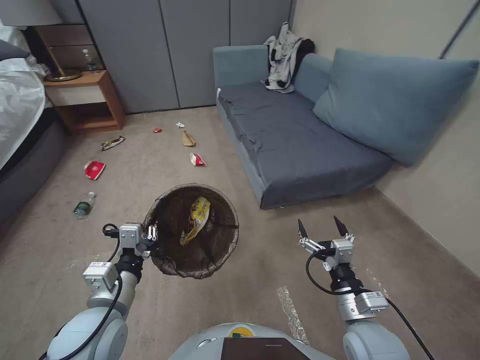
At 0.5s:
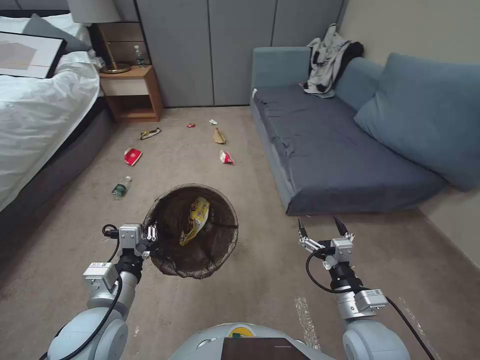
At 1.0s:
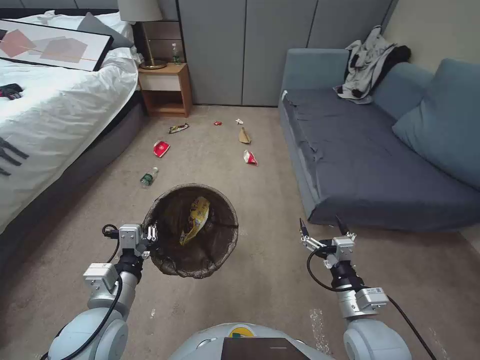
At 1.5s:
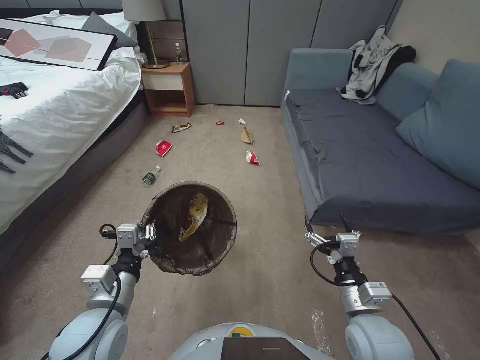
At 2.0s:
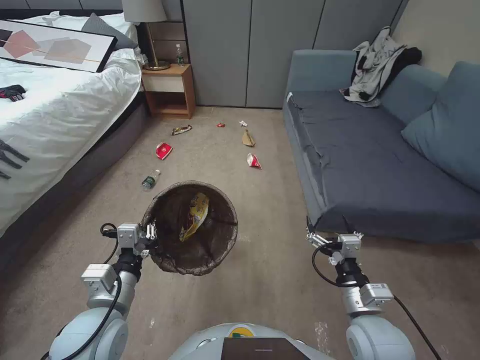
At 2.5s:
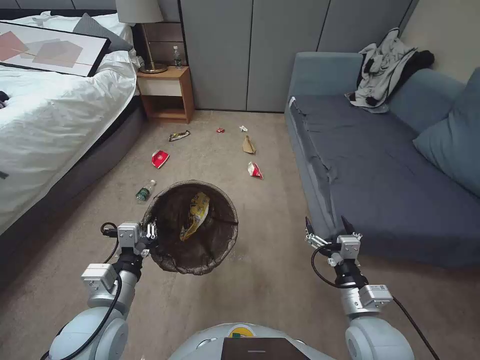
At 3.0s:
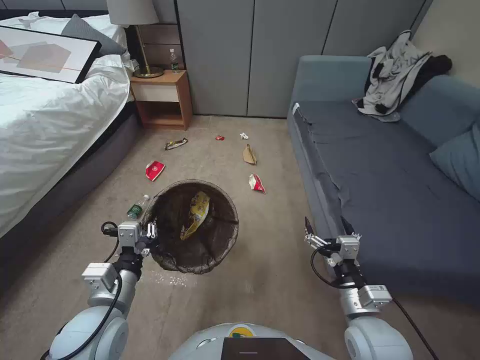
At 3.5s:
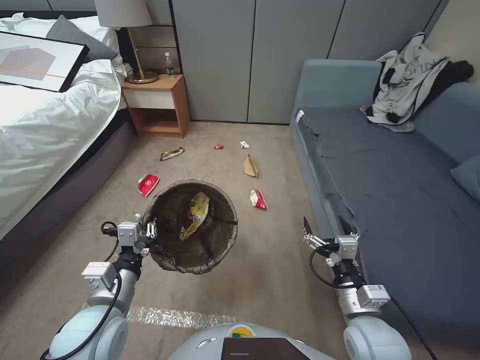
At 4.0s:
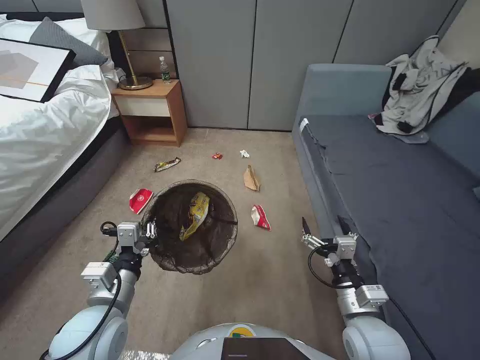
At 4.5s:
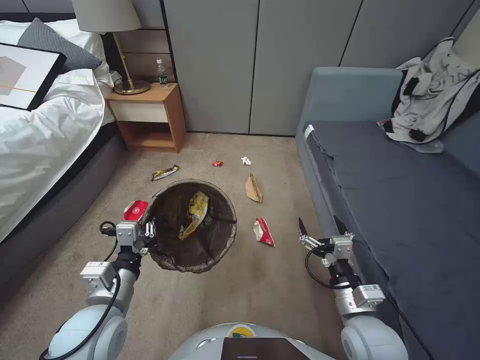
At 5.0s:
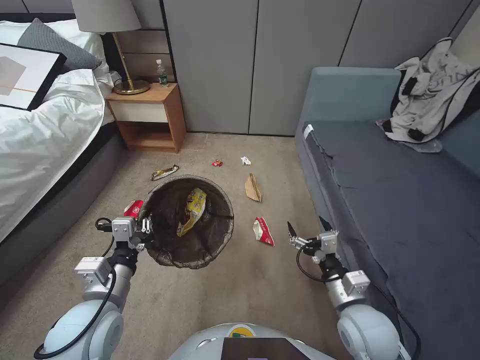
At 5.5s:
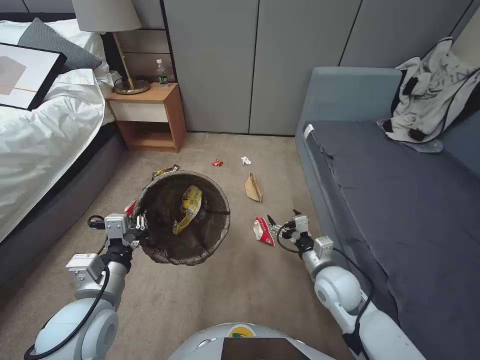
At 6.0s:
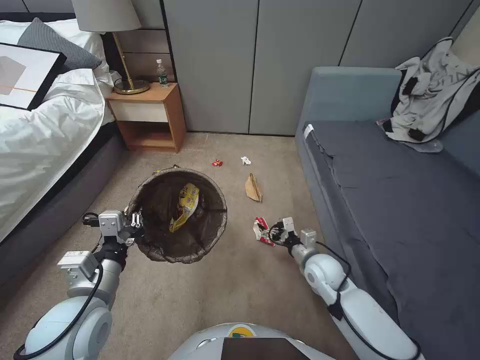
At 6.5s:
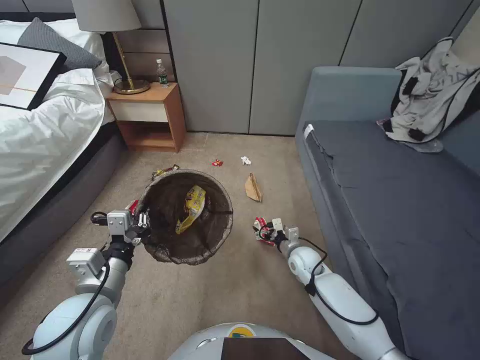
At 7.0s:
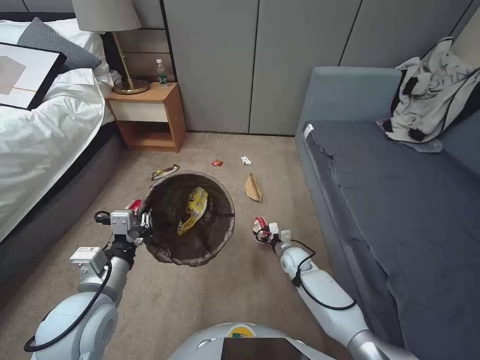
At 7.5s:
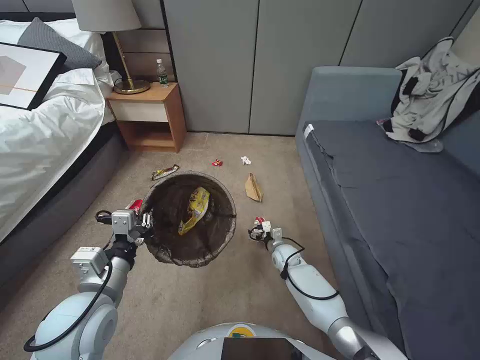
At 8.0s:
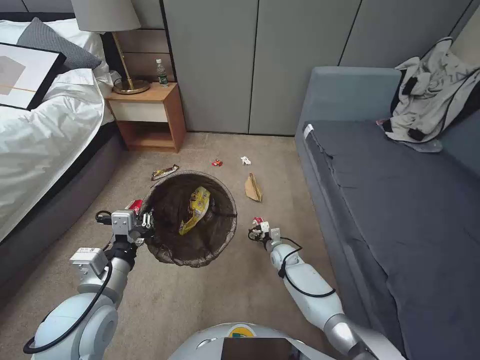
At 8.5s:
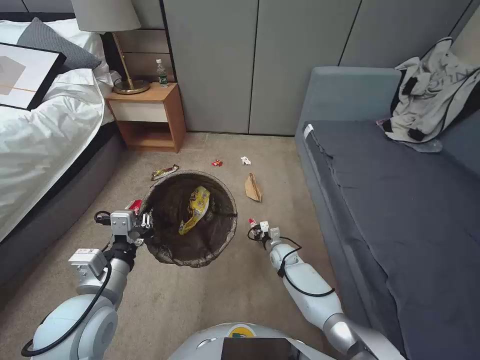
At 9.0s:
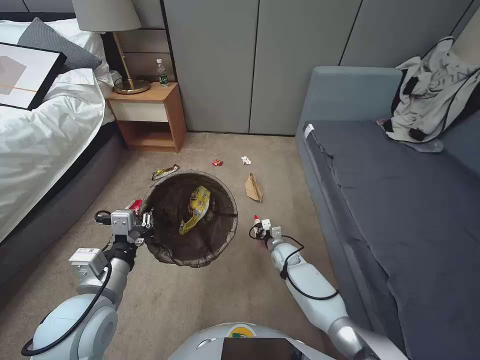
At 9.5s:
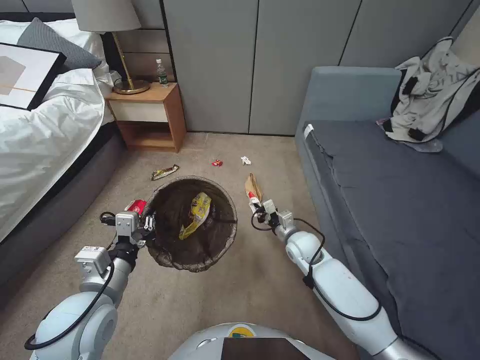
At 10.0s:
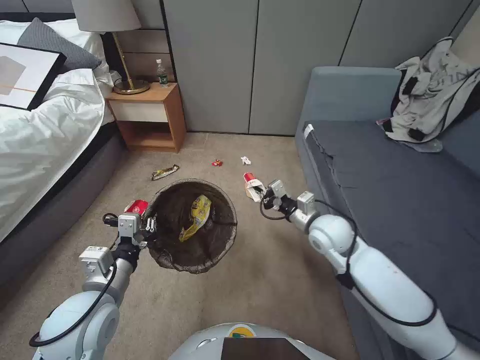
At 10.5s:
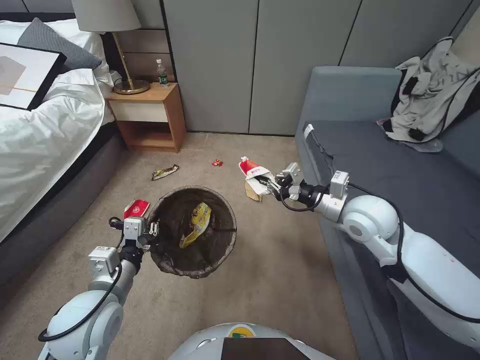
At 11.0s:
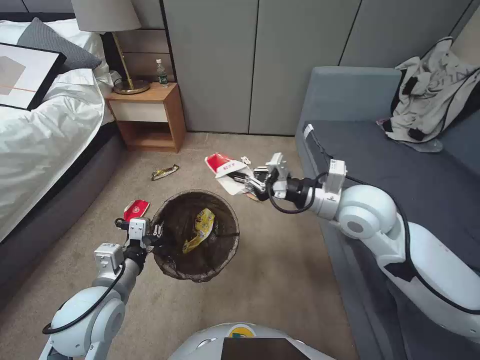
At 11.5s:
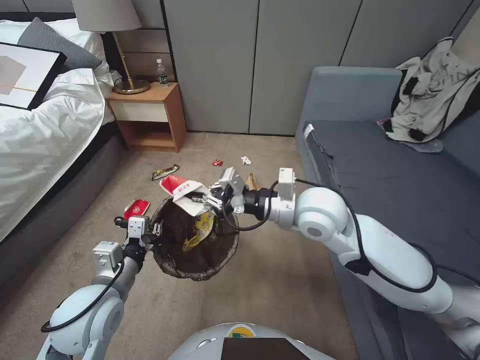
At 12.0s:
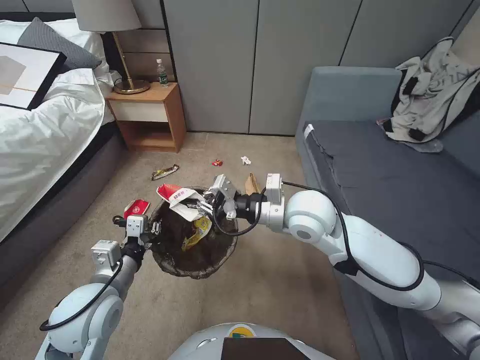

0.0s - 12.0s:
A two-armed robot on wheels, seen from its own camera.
Task of the whole recording: Pick up the trash bin, then pick up the garbage from the floor and place it into the trash bin.
4.0s - 6.0s: The right gripper moves forward and downward, about 15 cm.
6.0s - 8.0s: The right gripper travels downward and forward by approximately 20 cm.
8.0s - 10.0s: The right gripper travels upward by roughly 25 cm, and closes.
10.0s - 12.0s: The right gripper moves upward and to the left, some 15 cm.

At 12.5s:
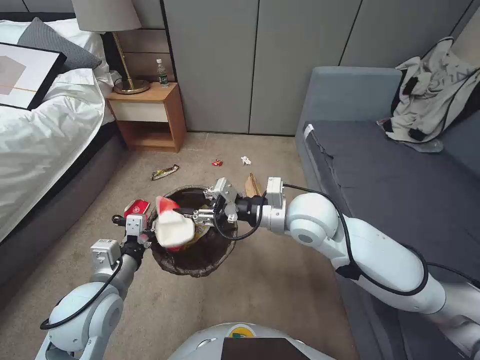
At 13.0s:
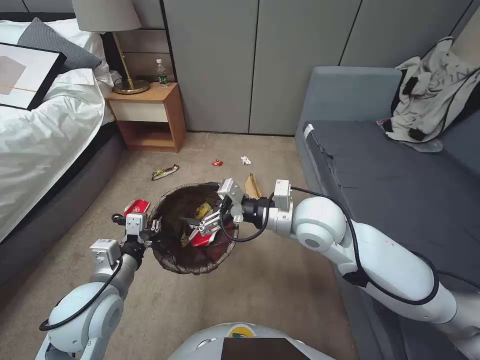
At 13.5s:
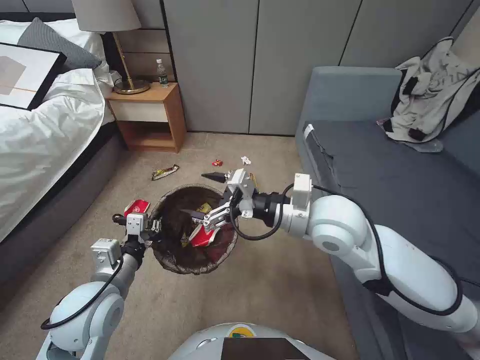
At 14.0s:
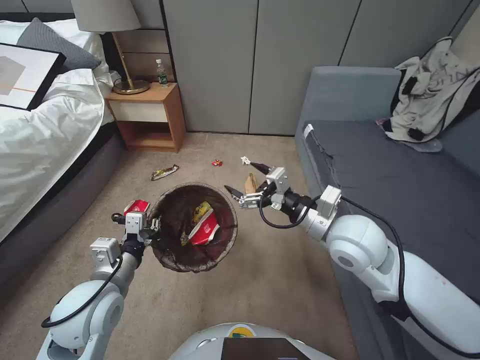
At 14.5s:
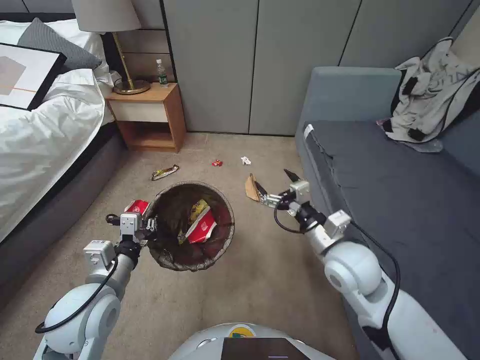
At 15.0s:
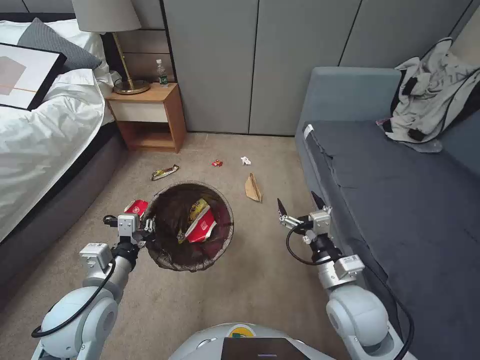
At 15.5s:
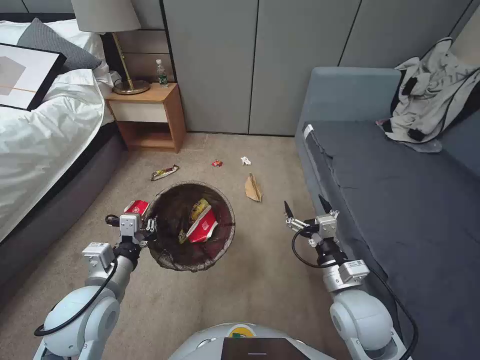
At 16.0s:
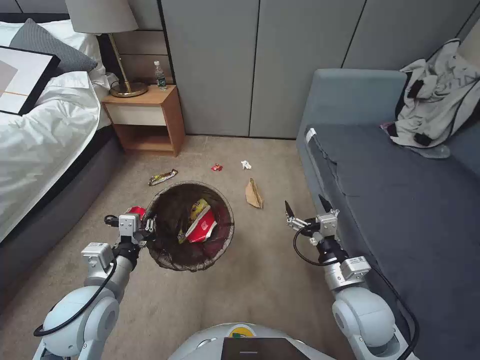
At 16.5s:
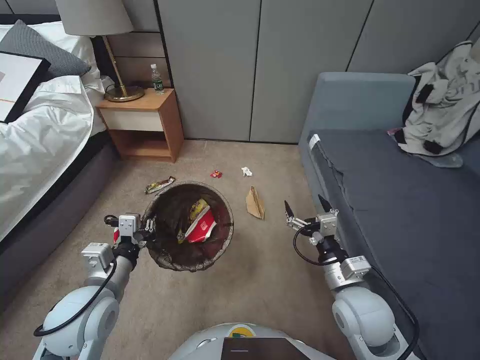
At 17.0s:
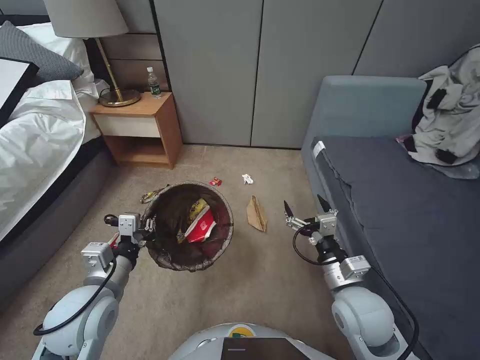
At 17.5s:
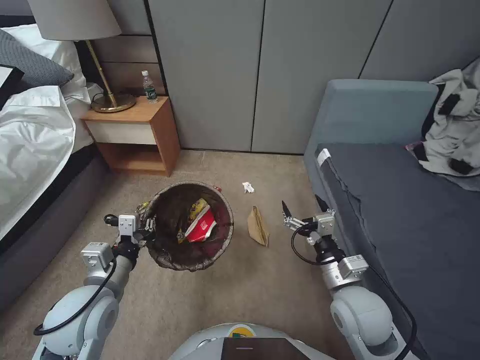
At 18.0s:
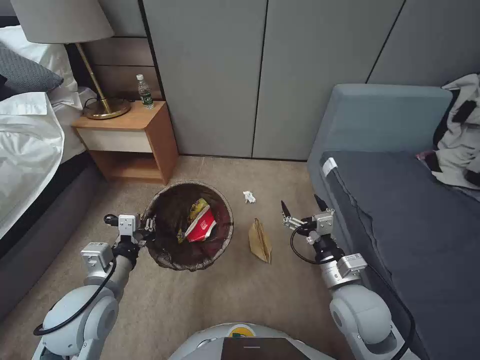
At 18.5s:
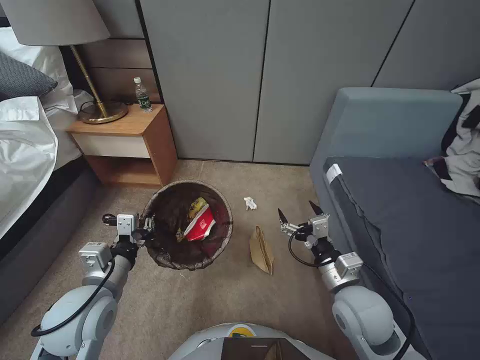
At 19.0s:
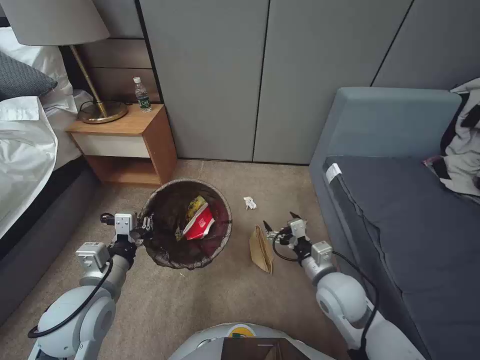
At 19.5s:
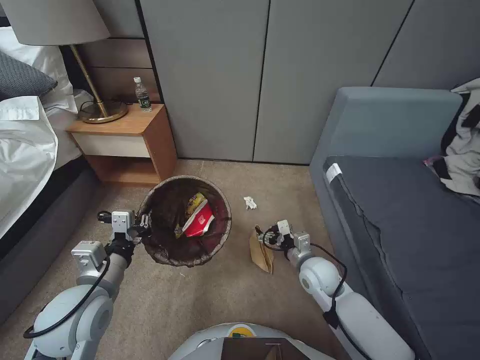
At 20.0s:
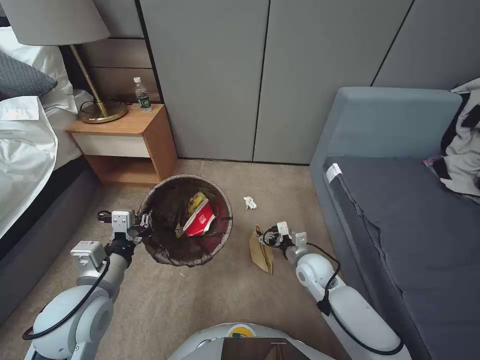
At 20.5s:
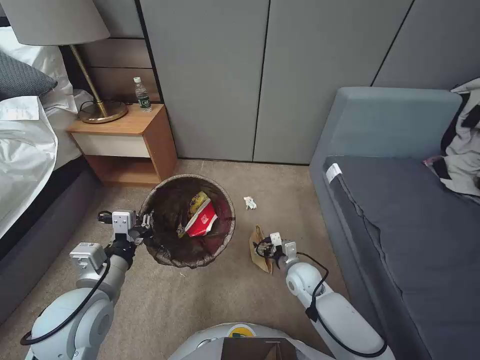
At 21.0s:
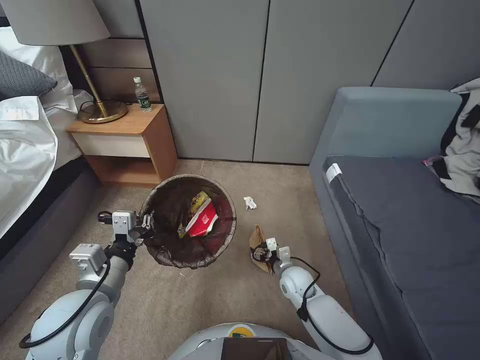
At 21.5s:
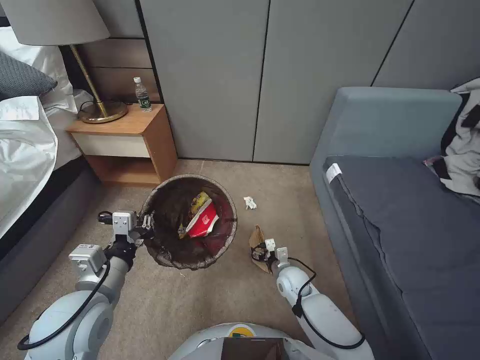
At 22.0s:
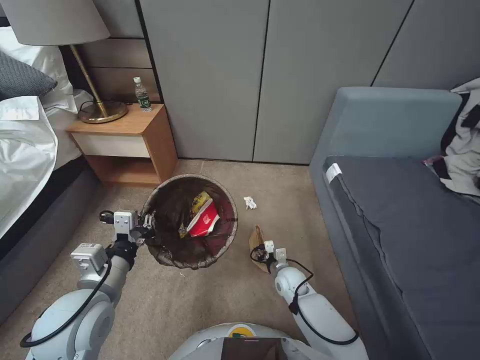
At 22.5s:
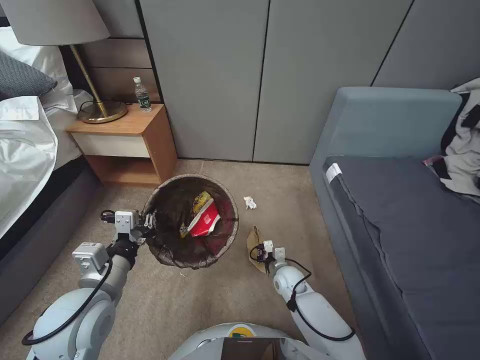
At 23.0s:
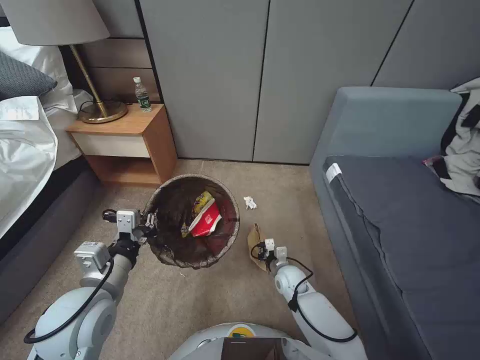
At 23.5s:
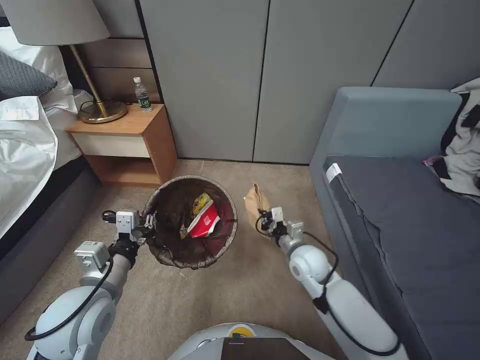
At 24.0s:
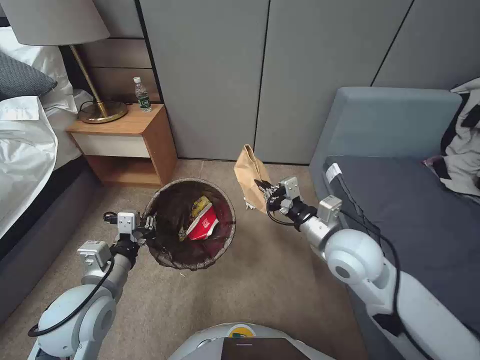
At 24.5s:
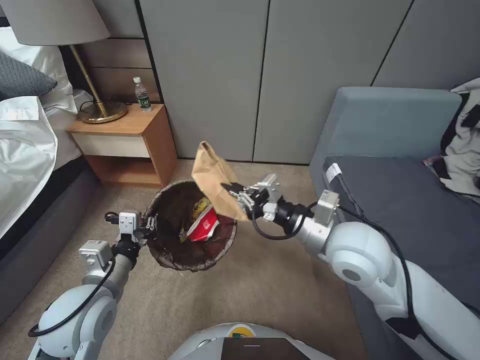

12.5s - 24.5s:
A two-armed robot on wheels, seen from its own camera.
Task of the whole recording: Pick up the trash bin, then pick up the garbage from the floor and place it into the trash bin.
12.5s - 14.5s: The right gripper moves to the right, downward and backward, some 15 cm, and opens up.
14.5s - 16.5s: The right gripper shifts some 10 cm backward and downward.
18.5s - 20.5s: The right gripper travels downward and forward by roughly 20 cm.
20.5s - 22.5s: The right gripper heads downward, covering about 5 cm, and closes up.
22.5s - 24.5s: The right gripper heads upward, covering approximately 40 cm.

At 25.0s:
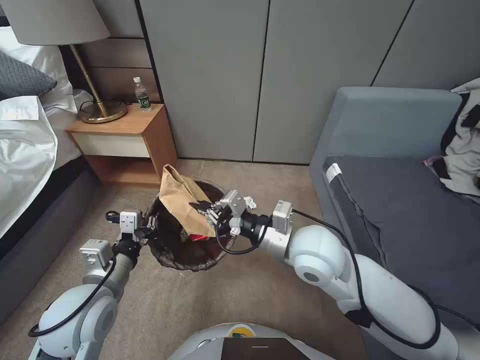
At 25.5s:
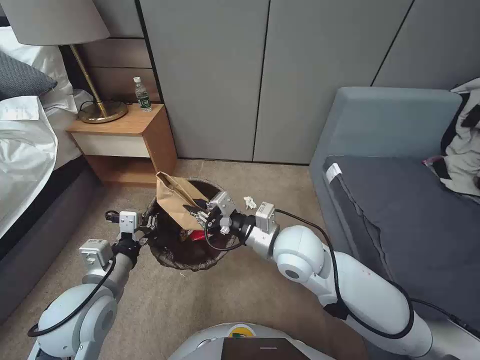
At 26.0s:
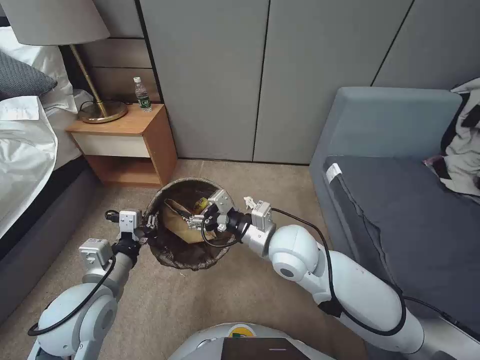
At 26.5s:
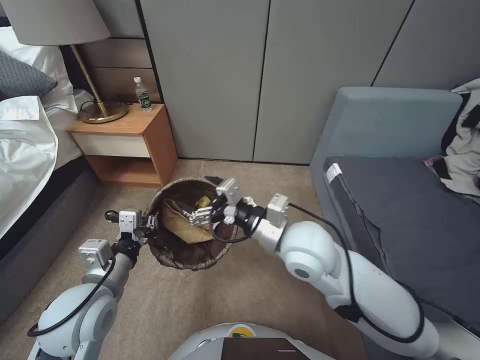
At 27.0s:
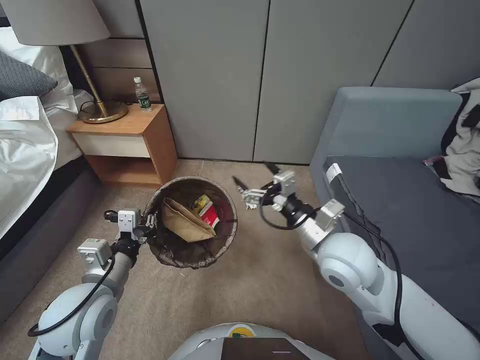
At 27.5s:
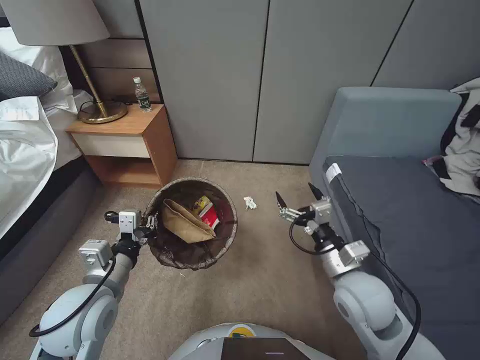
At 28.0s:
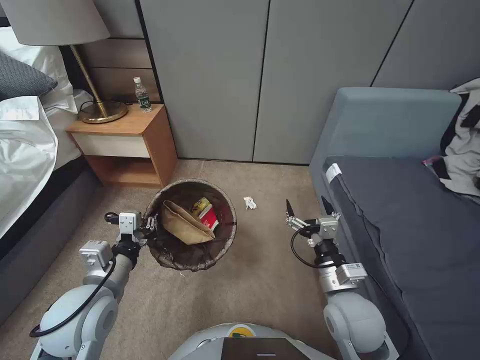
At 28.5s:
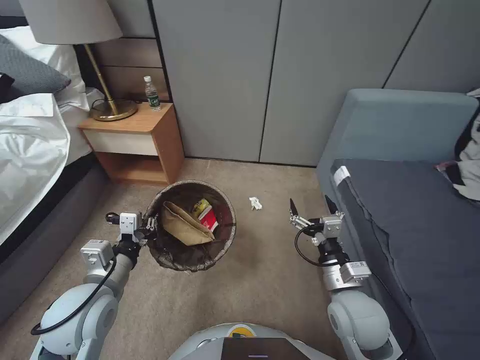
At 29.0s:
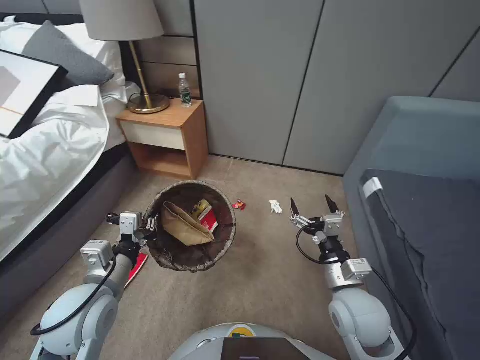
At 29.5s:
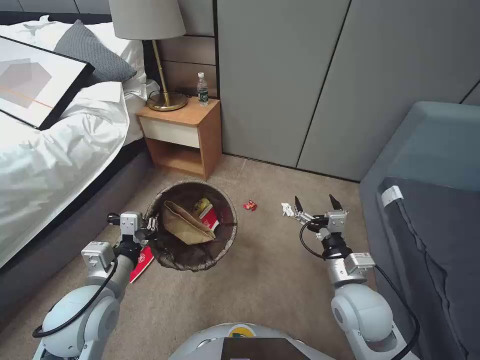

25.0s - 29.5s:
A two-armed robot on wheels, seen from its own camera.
Task of the whole recording: Pick up the trash bin, then pick up the garbage from the floor and place it into the trash bin.
25.0s - 27.0s: The right gripper opens its fingers.
27.0s - 29.5s: The right gripper heads downward, backward and to the right, covering about 15 cm.
